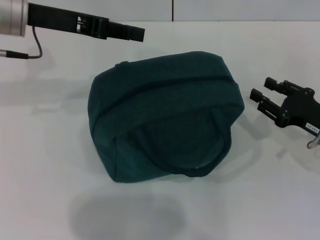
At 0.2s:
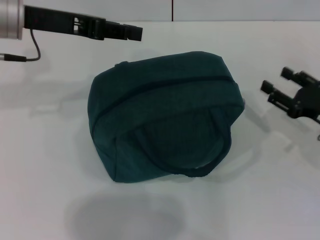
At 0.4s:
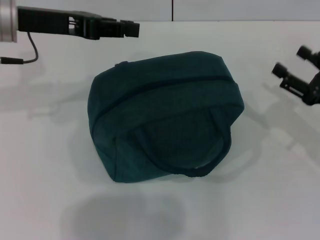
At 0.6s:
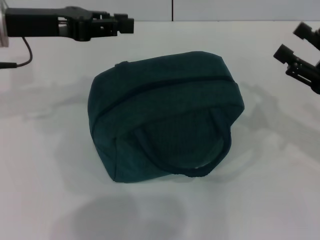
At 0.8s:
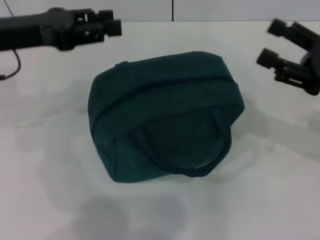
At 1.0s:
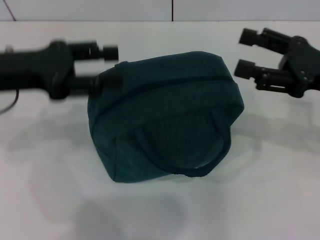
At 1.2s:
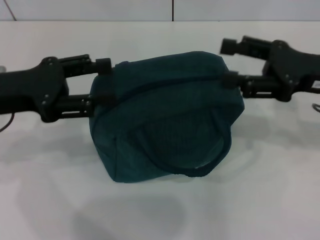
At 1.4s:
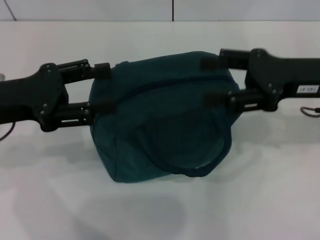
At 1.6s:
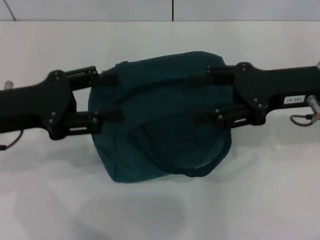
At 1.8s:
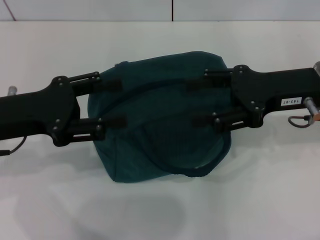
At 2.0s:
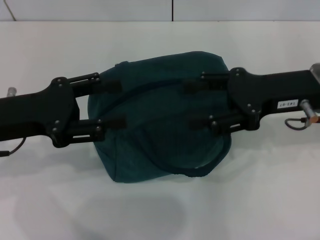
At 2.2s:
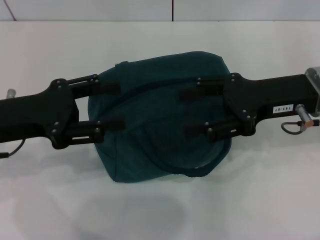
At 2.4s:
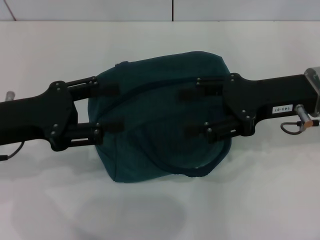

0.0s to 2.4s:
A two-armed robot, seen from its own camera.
0.0s to 1.2s: The right gripper heads upward, covering some 15 cm, and opens, while the left gripper shifts about 15 cm backward, downward and to the left, and opens its fingers.
1.2s to 2.4s: The grippers make only small movements.

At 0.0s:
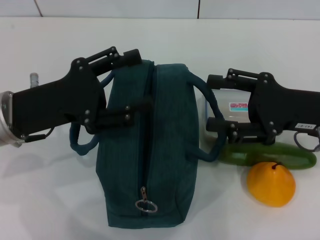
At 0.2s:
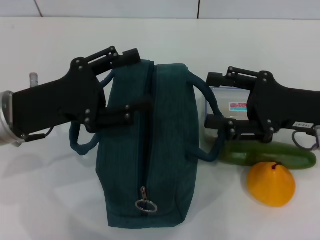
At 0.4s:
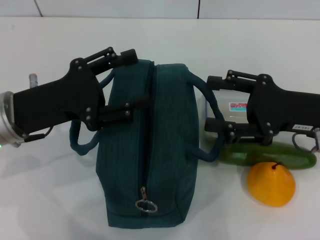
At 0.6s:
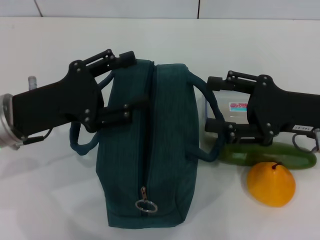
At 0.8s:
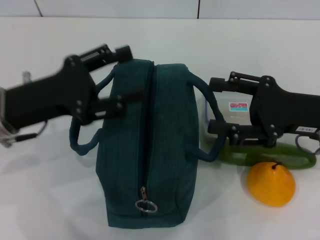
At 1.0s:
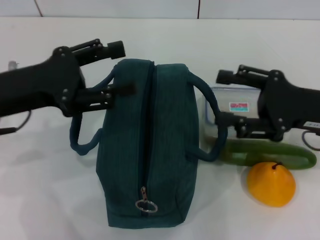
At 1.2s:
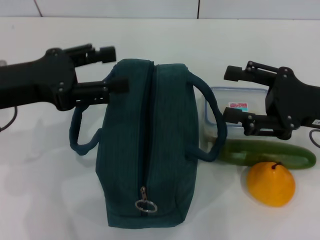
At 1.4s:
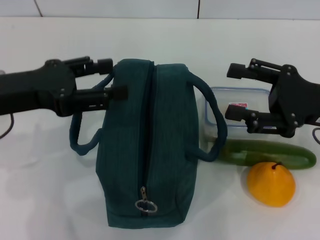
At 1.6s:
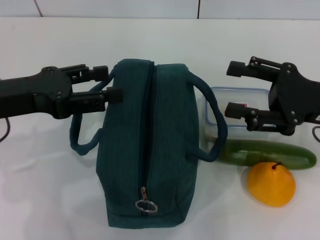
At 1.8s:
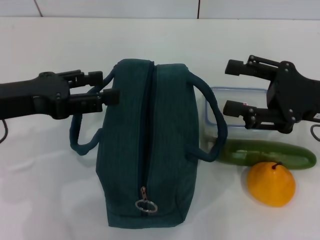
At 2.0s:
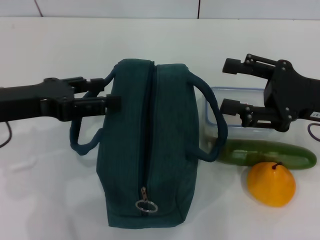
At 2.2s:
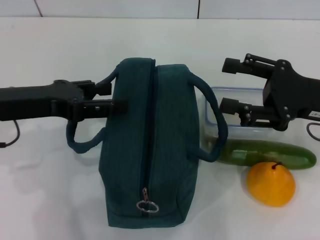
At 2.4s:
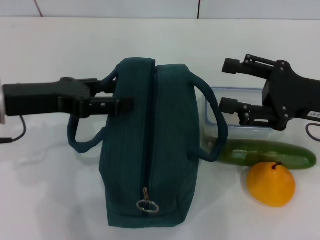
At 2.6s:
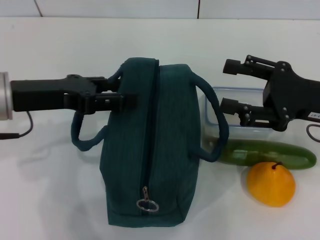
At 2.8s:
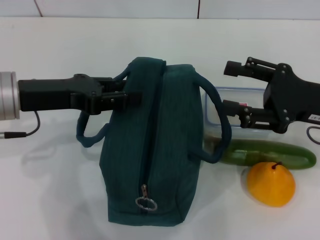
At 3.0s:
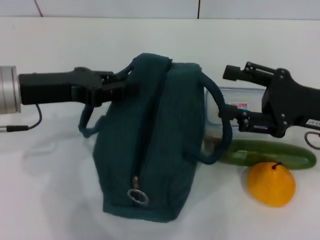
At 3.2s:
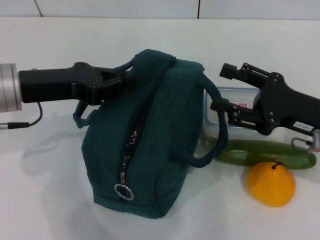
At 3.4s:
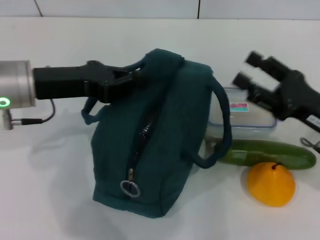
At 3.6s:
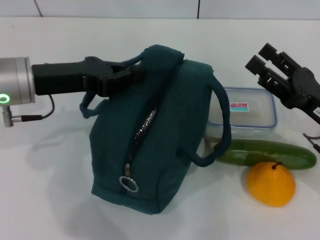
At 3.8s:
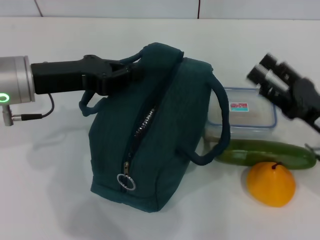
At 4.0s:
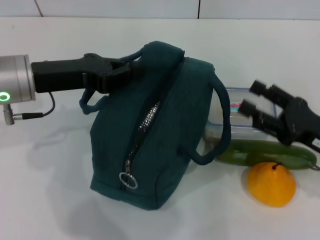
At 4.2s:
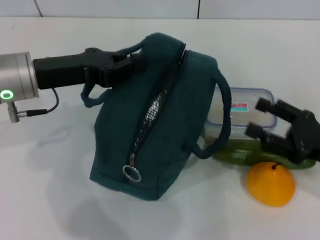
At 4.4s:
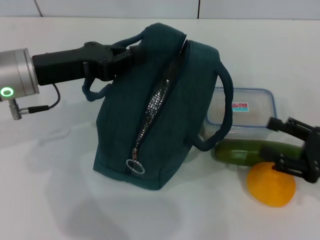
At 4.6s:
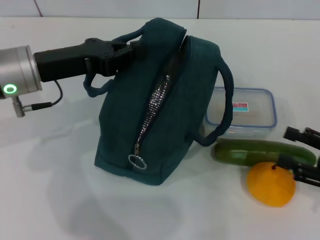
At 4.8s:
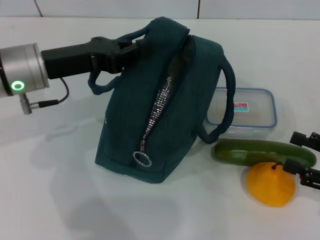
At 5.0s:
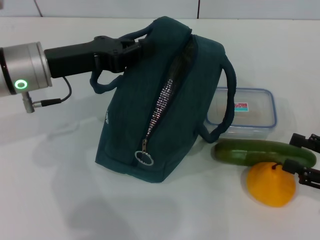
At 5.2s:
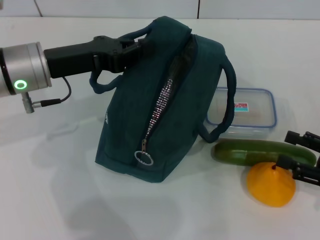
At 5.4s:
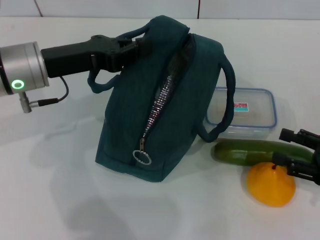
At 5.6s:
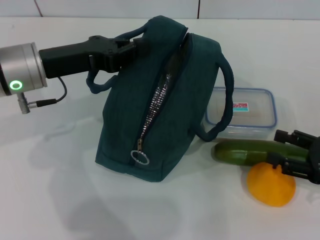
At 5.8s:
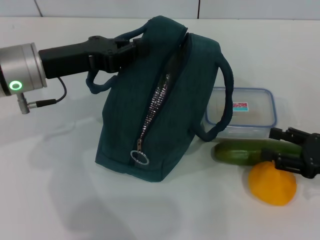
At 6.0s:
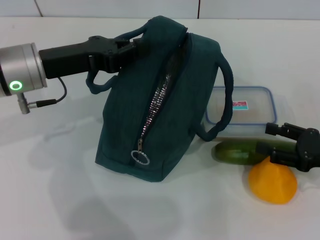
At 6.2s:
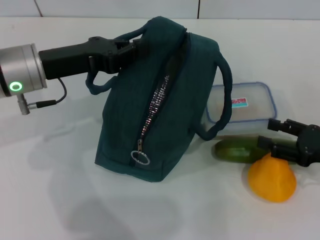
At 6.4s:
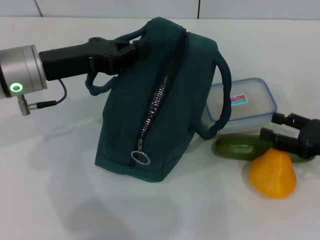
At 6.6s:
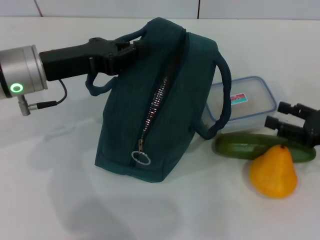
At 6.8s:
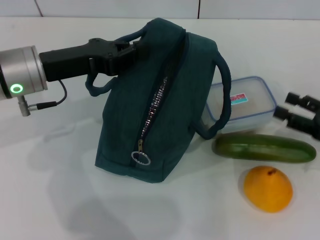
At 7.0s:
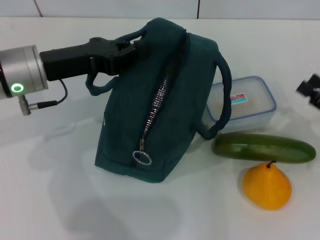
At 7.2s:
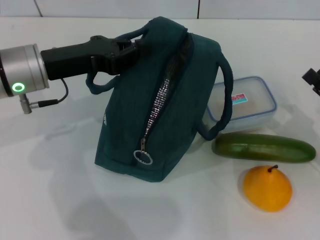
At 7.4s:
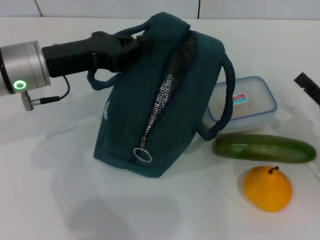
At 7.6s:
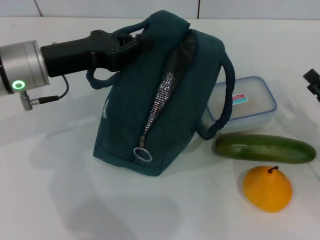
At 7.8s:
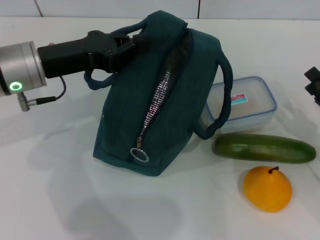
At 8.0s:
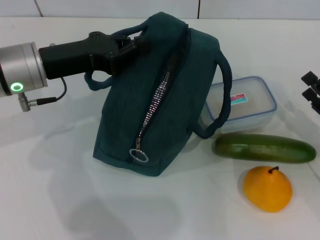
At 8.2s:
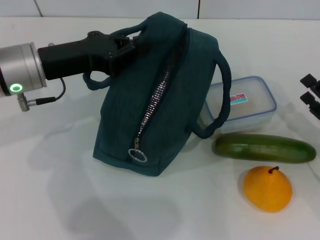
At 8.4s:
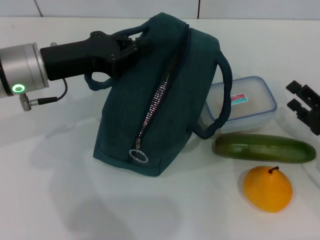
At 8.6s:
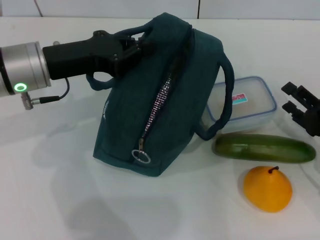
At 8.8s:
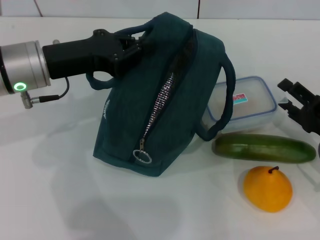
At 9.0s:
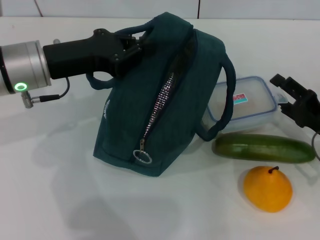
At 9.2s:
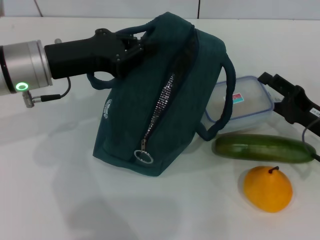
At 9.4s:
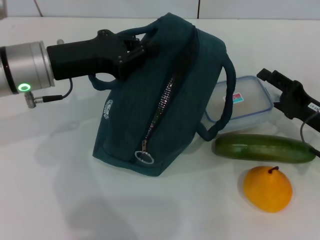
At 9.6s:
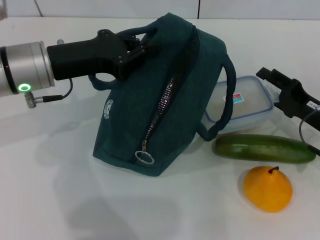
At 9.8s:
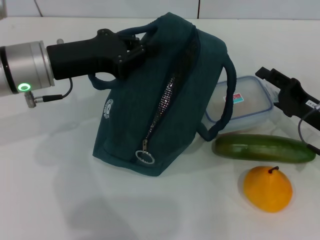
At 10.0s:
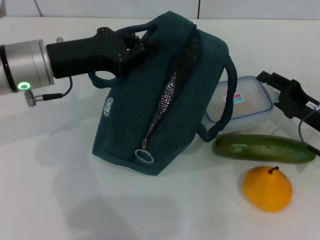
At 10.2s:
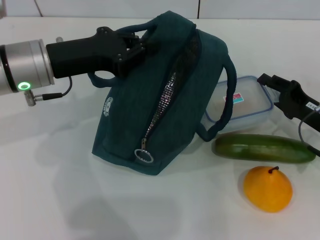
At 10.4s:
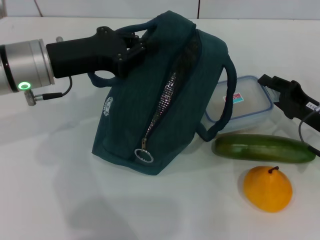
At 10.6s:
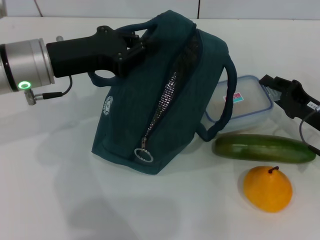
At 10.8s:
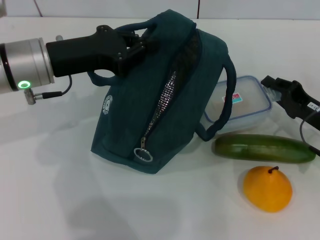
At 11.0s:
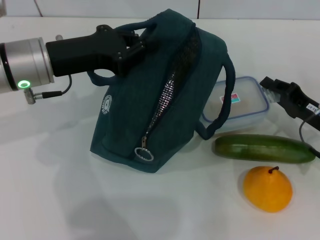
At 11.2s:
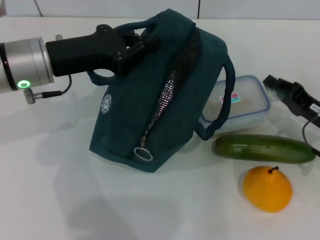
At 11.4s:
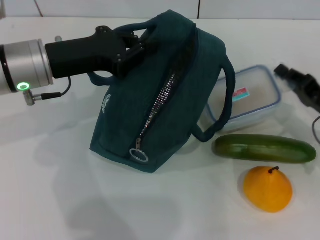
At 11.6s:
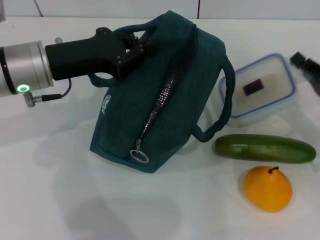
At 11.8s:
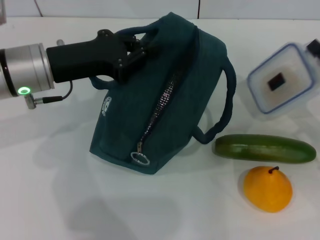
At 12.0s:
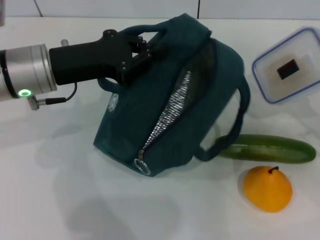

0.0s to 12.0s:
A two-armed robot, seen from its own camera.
Step, 0.0s to 4.0s: Hold the lunch bag with your left hand.
Step, 4.2s to 11.2s: Pick up the lunch box with your right hand.
0.0s to 1.6s: The left gripper goes about 5 cm upward.
1.6s to 3.0s: The left gripper ends up roughly 5 cm from where it was.
3.0s to 4.4s: The right gripper moves downward, backward and to the right, roughly 10 cm; the left gripper closes.
4.4s to 6.0s: The grippers stay close to where they were, moving slightly.
9.0s to 10.4s: The right gripper closes up.
10.4s to 12.0s: The right gripper goes approximately 10 cm to the right and upward.

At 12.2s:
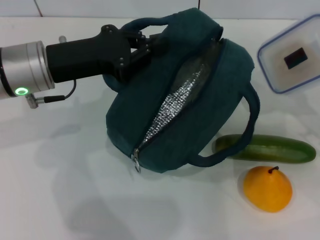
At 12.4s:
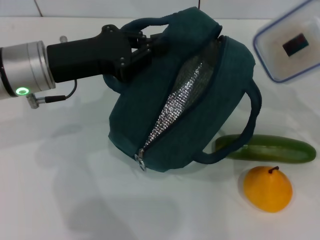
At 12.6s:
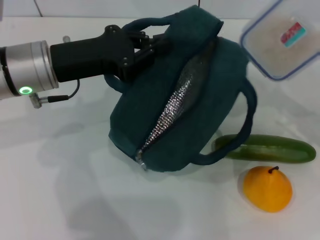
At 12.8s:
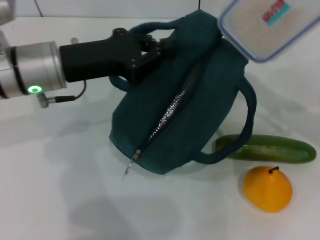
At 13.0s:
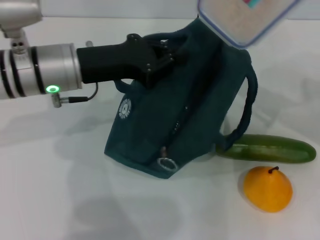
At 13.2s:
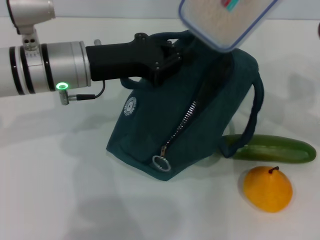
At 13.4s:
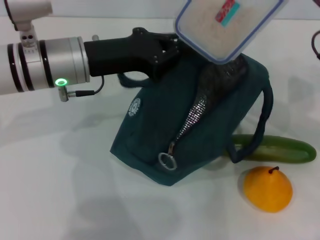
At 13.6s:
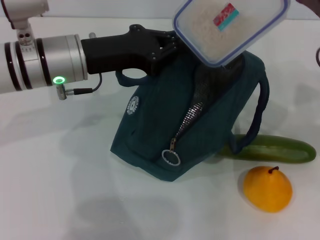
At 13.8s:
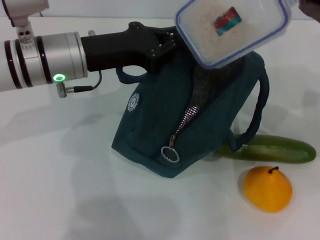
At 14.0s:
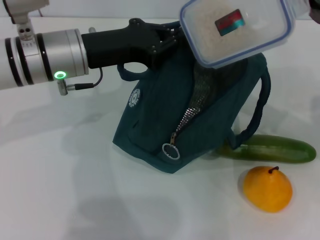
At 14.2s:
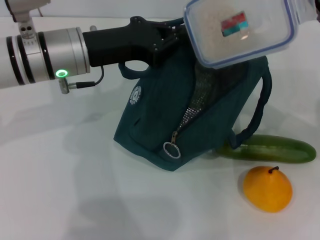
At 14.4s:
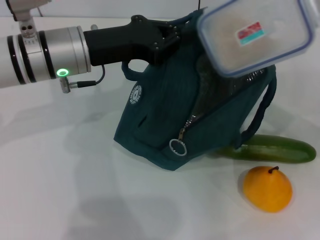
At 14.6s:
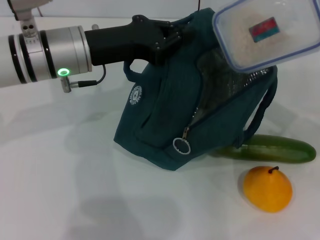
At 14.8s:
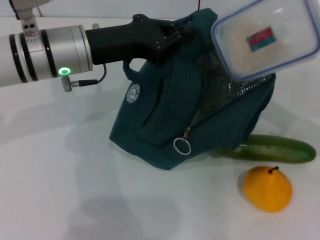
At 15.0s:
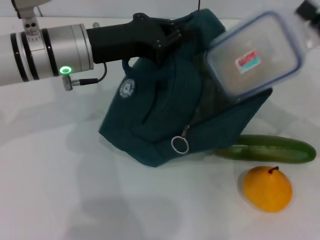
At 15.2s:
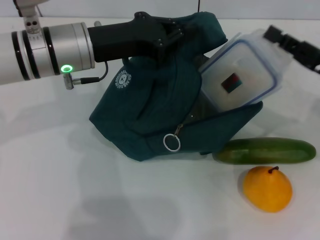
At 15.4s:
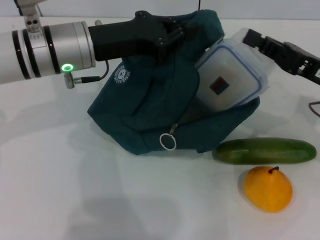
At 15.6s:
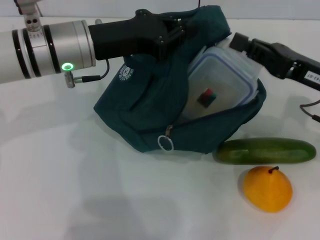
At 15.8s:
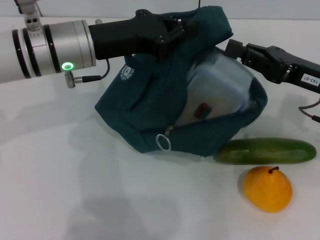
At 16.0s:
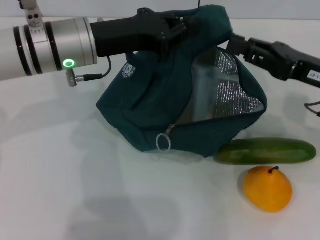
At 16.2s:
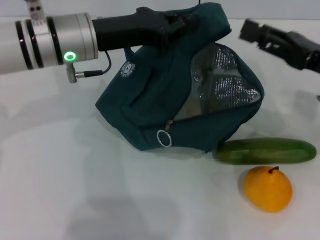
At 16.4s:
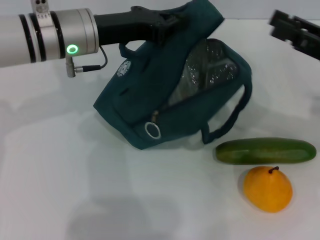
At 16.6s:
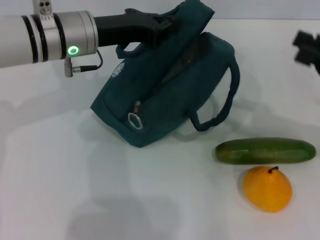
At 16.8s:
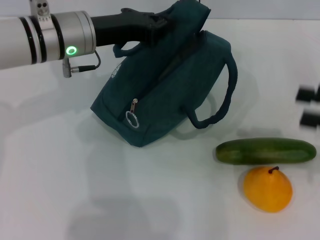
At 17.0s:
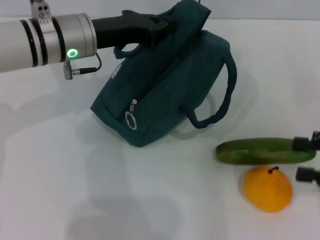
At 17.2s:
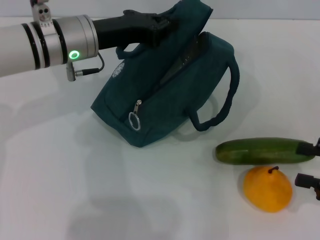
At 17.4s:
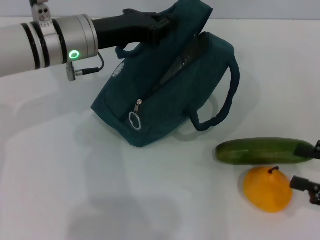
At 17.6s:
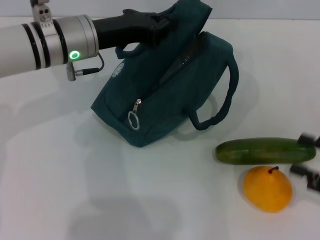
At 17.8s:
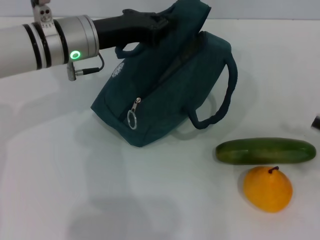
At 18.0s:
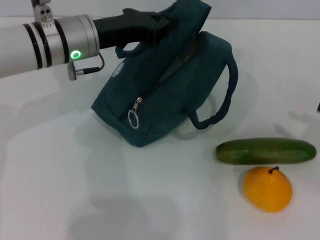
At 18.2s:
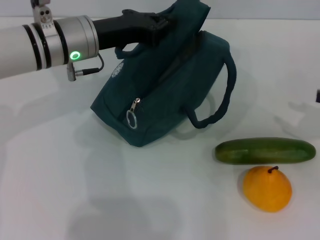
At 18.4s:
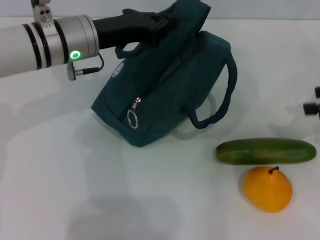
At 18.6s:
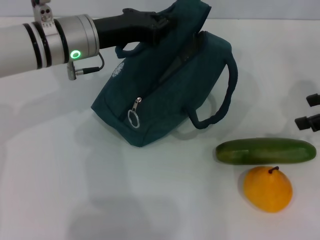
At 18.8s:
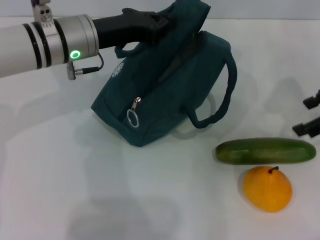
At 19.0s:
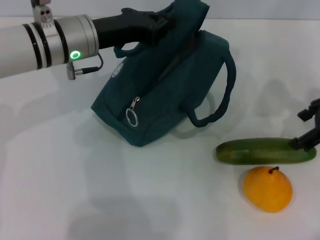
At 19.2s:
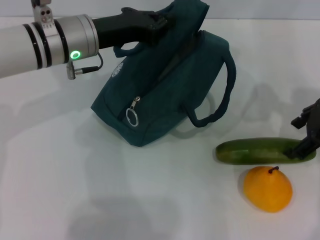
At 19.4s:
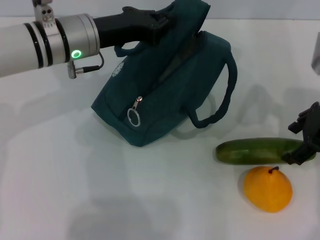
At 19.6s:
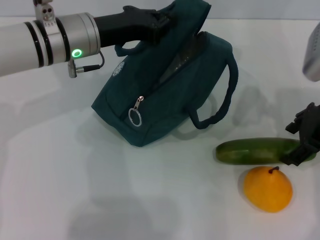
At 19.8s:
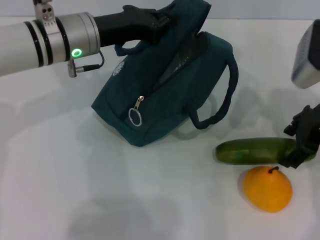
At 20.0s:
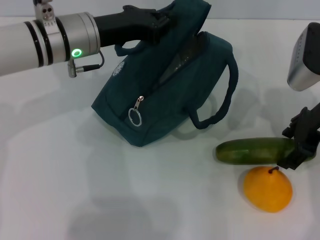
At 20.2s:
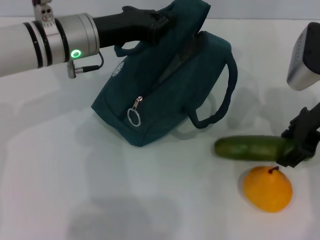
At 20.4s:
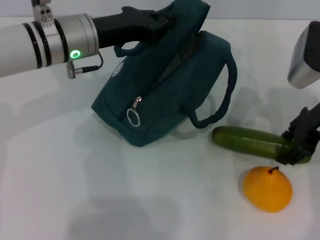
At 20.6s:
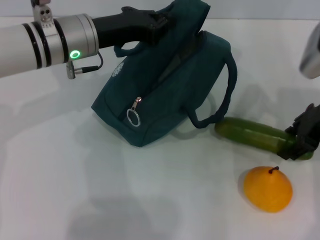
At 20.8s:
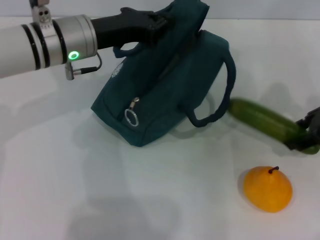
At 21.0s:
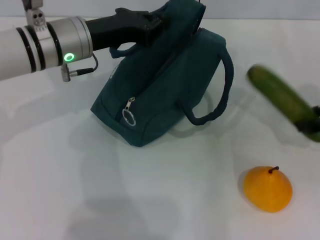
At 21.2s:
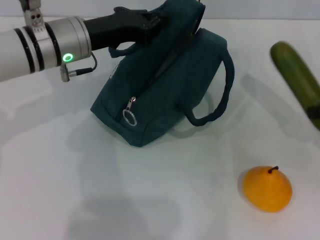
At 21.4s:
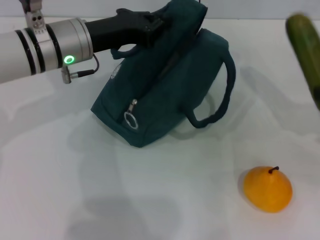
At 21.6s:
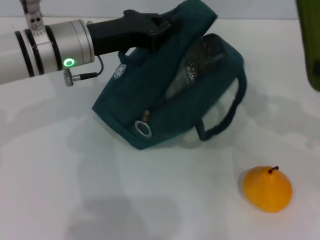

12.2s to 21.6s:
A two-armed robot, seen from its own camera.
Step, 12.2s to 16.2s: Place the lunch box into the lunch bag with your right hand.
Step, 16.4s to 20.2s: Pick up the cucumber with your right hand.
12.2s to 13.8s: The right gripper heads to the left and upward, covering approximately 10 cm.
15.4s to 17.0s: The right gripper shifts about 10 cm to the right and backward, and opens its fingers.
17.0s to 18.4s: The right gripper goes some 10 cm forward and upward.
18.4s to 20.0s: The right gripper moves to the left, roughly 15 cm.
20.0s to 21.6s: The right gripper goes roughly 15 cm to the right and backward.
